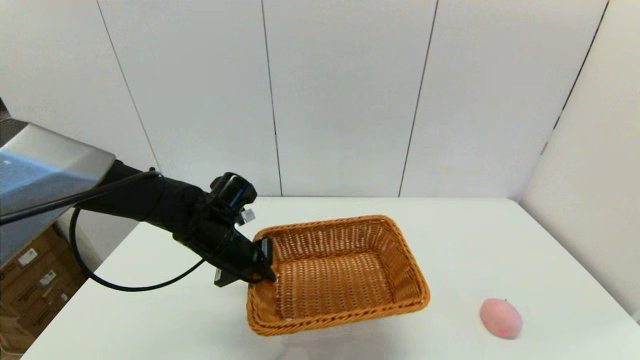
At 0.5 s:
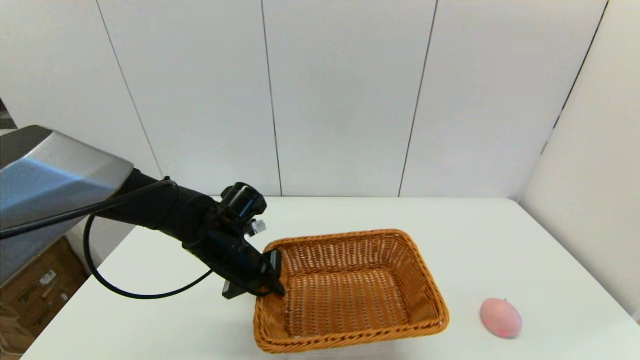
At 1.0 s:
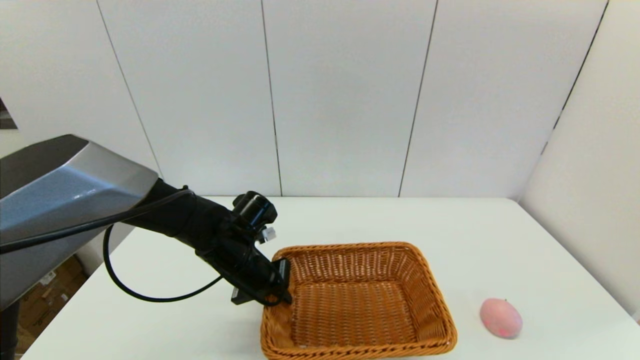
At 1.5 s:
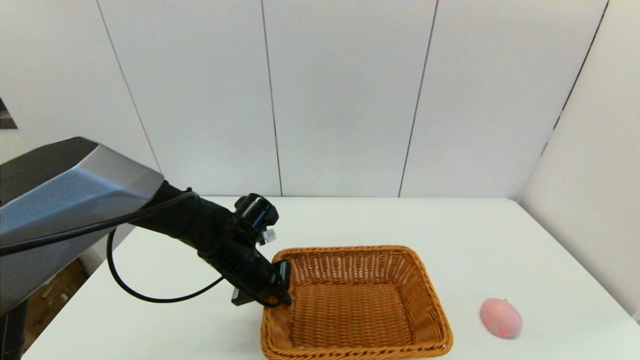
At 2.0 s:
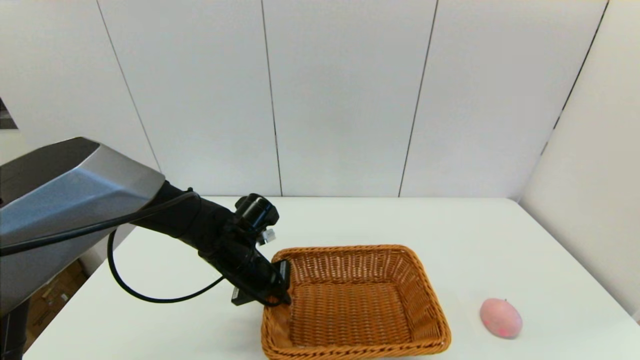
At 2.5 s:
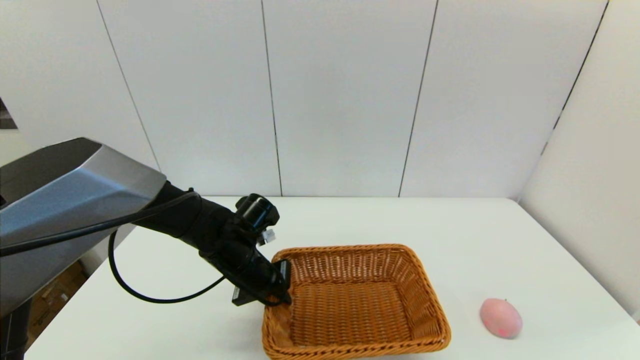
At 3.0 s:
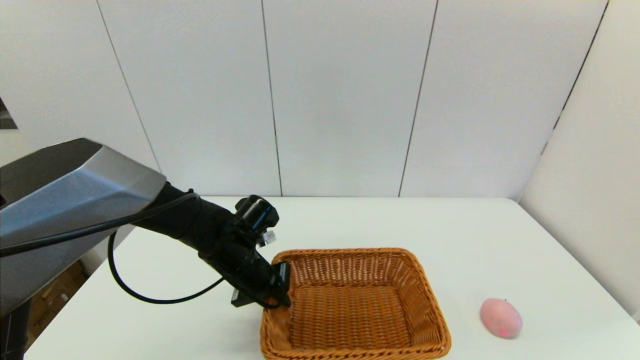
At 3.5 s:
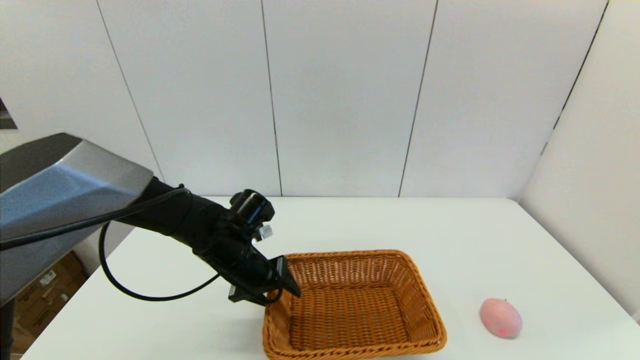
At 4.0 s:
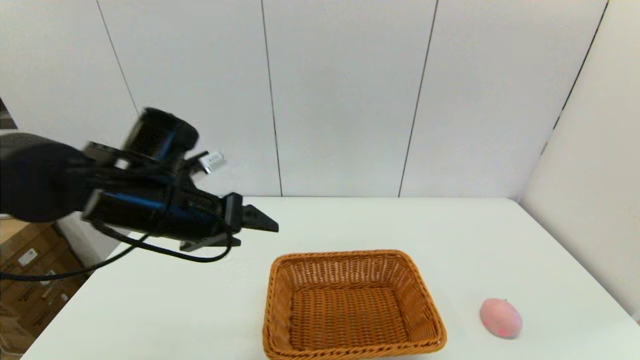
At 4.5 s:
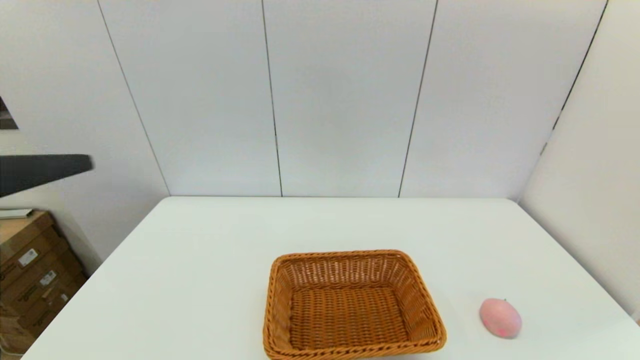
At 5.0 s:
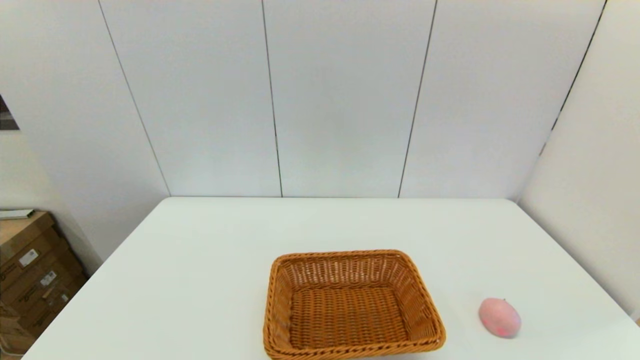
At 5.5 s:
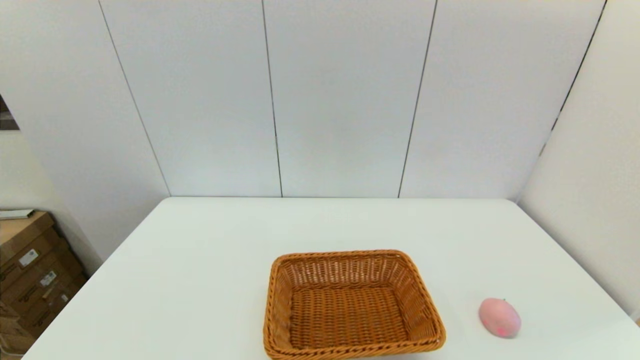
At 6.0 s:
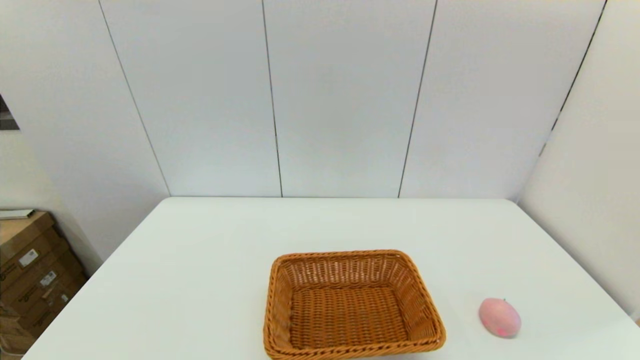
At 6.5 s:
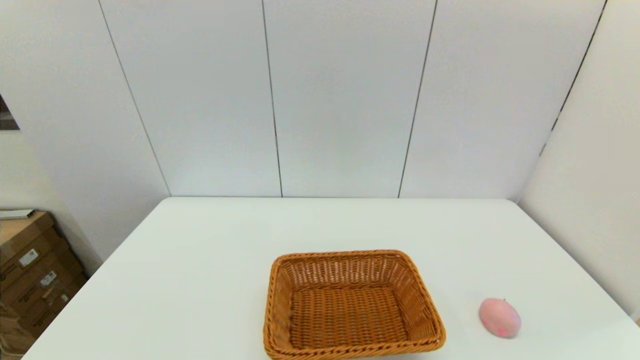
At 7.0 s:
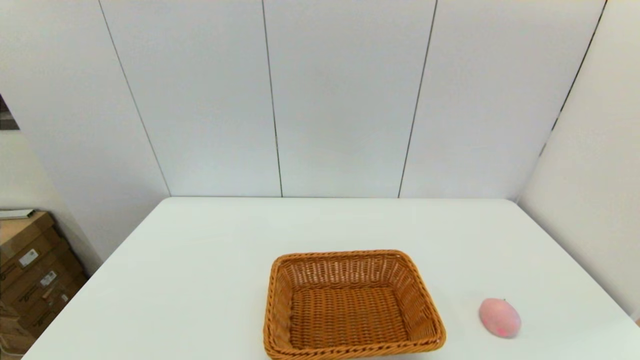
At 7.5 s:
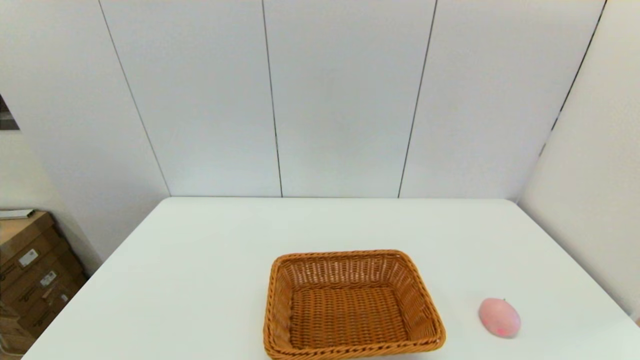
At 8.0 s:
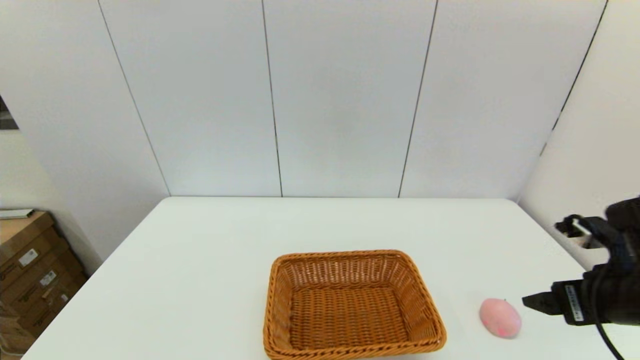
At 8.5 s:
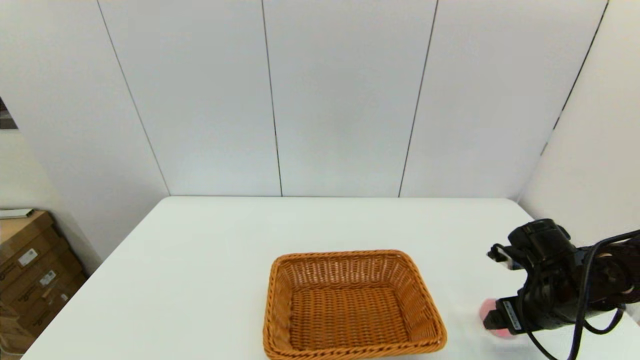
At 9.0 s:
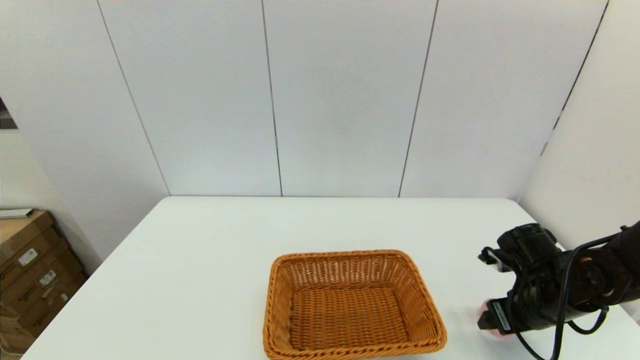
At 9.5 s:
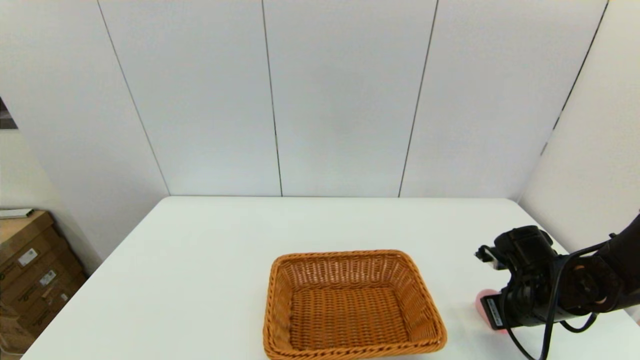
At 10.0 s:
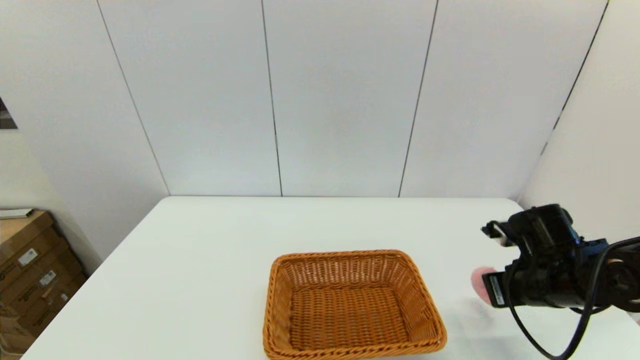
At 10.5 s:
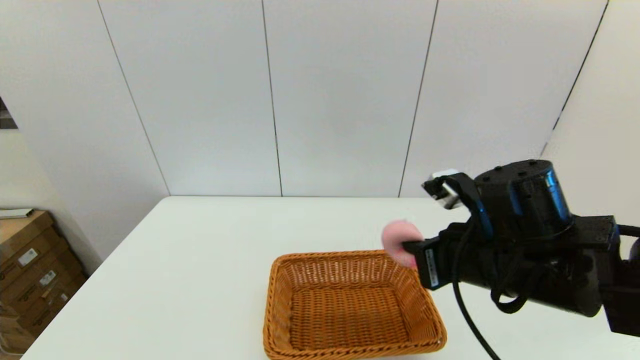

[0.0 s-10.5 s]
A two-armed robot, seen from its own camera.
Step, 0.0 to 3.0 s: Place the light basket on the middle of the table with the left gripper.
Step, 3.5 to 9.5 s: Grasp the peach with the right gripper.
0.0 to 2.0 s: The grippers move only a little.
2.0 to 4.0 s: The left gripper shifts some 15 cm upward, and opens its fingers.
4.0 to 6.5 s: The left gripper is displaced backward, downward and to the left by about 30 cm.
6.5 to 8.5 s: The right gripper heads forward, covering roughly 25 cm.
8.5 to 10.5 s: The right gripper shifts roughly 20 cm to the left and upward, and closes its fingers.

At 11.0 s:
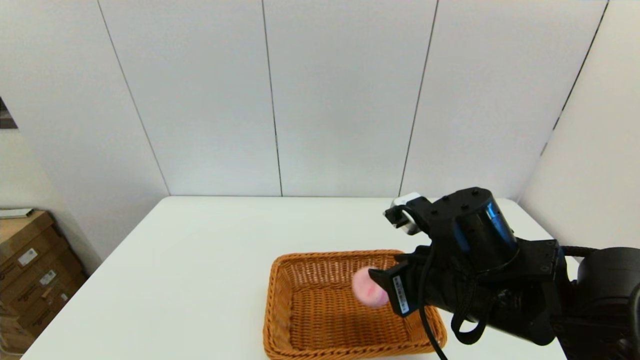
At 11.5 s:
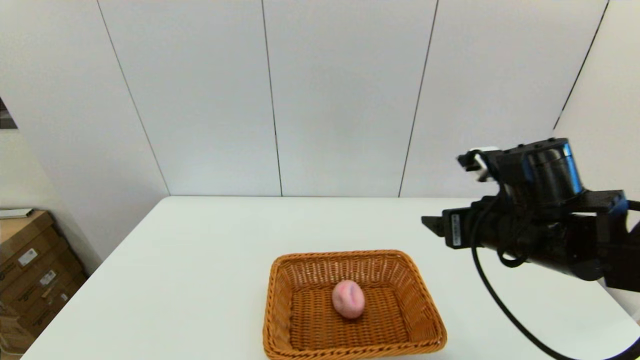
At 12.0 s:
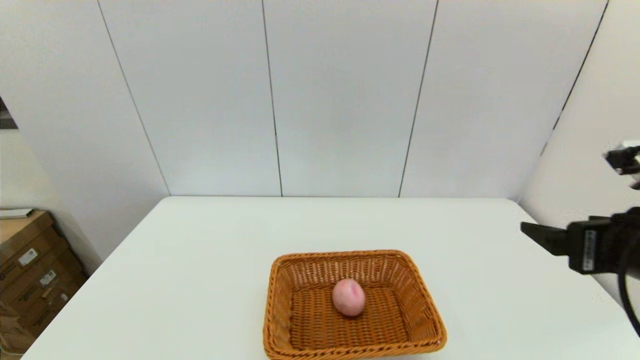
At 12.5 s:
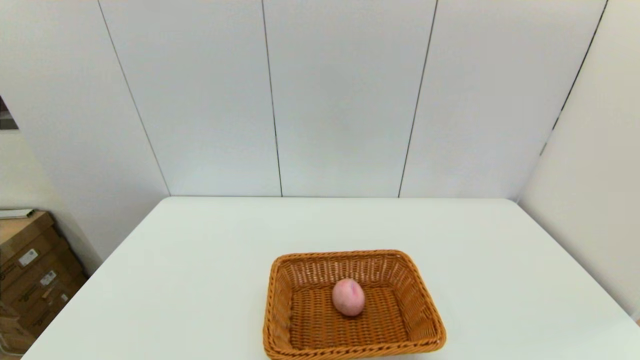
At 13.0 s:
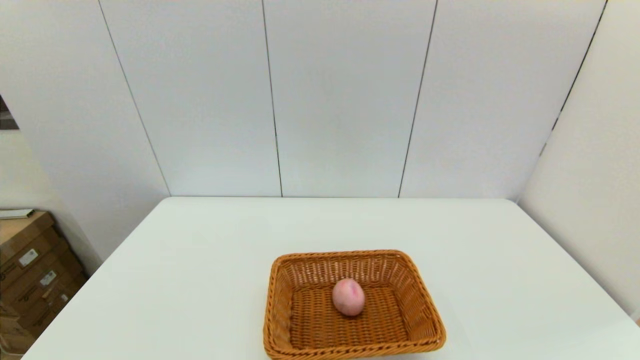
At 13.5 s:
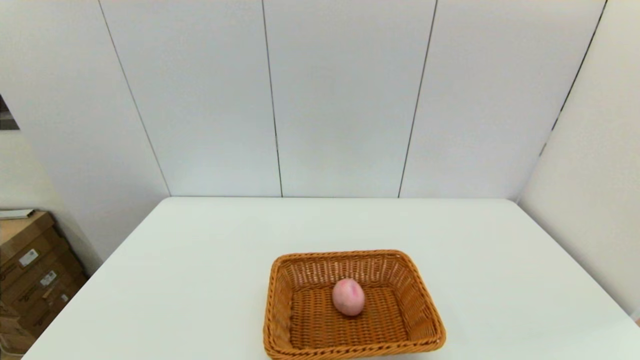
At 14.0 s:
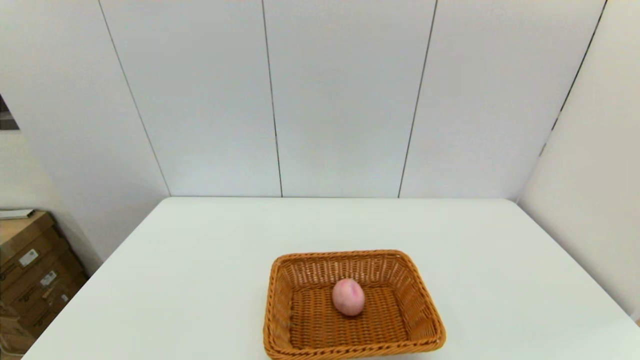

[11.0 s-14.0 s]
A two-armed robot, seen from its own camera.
11.0 to 12.5 s: The right gripper heads to the right and backward, covering about 25 cm, and opens.

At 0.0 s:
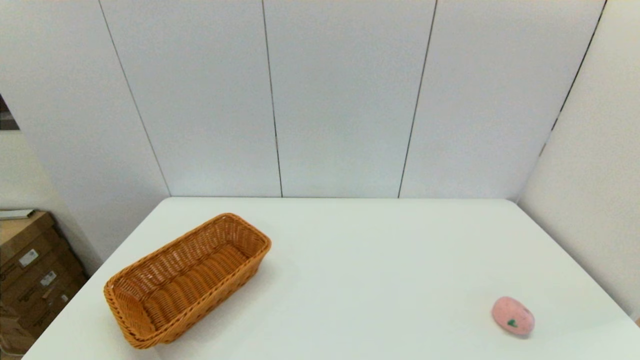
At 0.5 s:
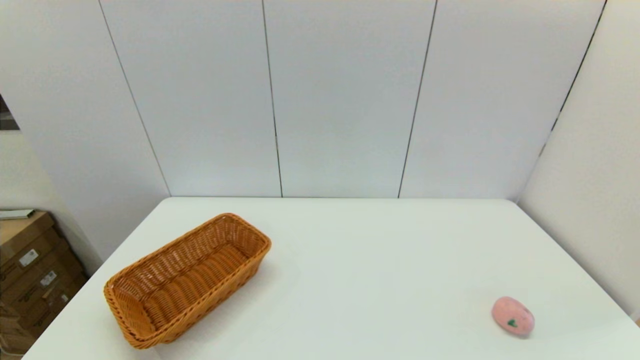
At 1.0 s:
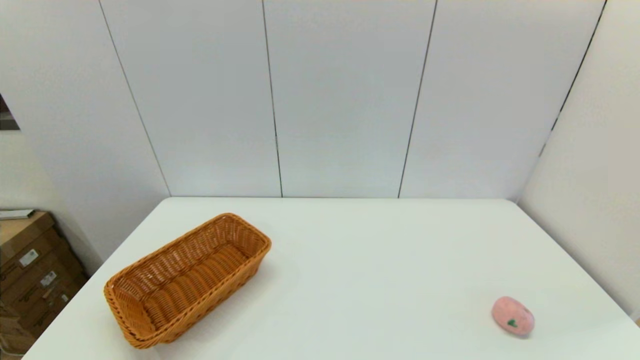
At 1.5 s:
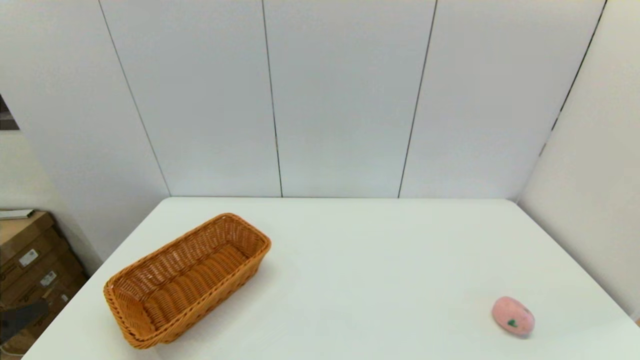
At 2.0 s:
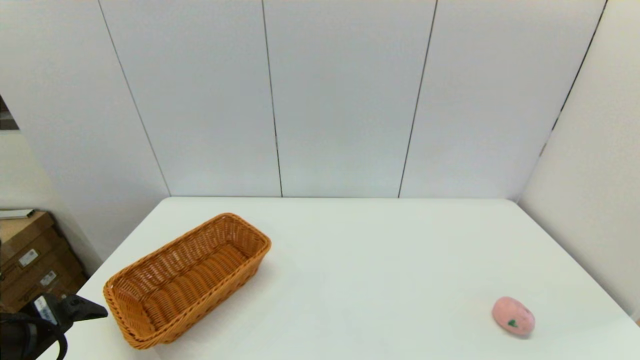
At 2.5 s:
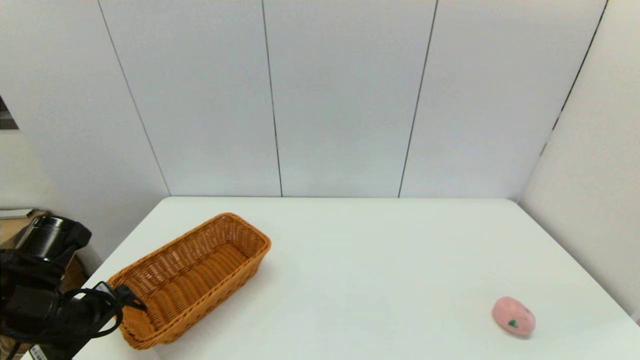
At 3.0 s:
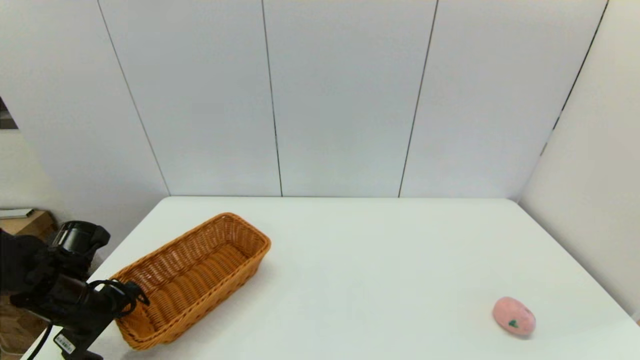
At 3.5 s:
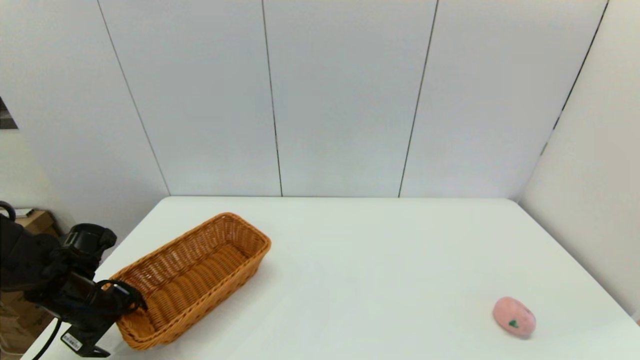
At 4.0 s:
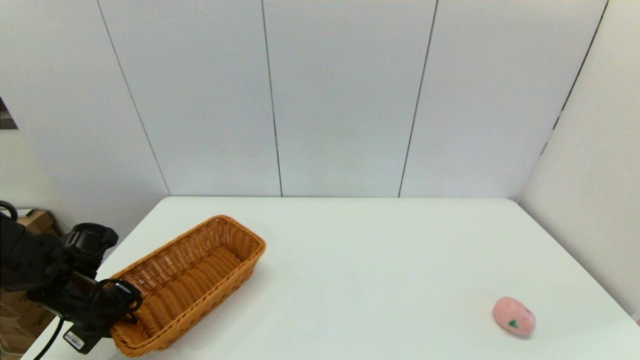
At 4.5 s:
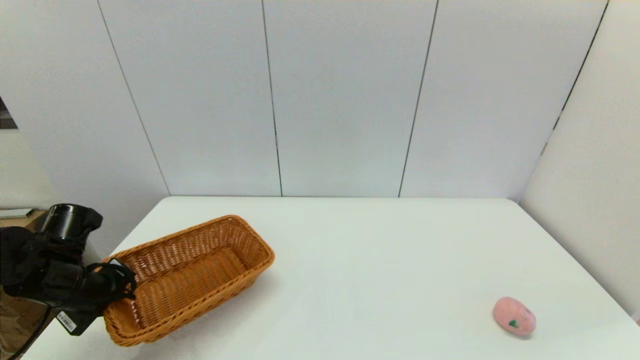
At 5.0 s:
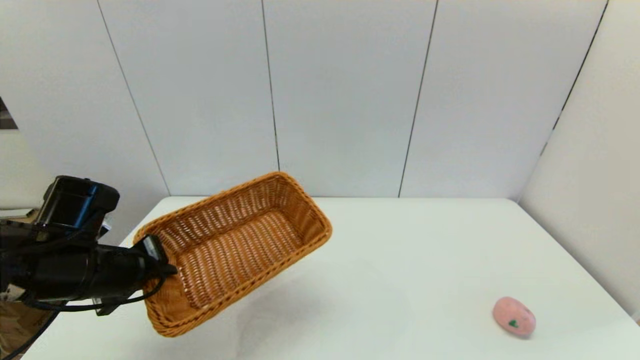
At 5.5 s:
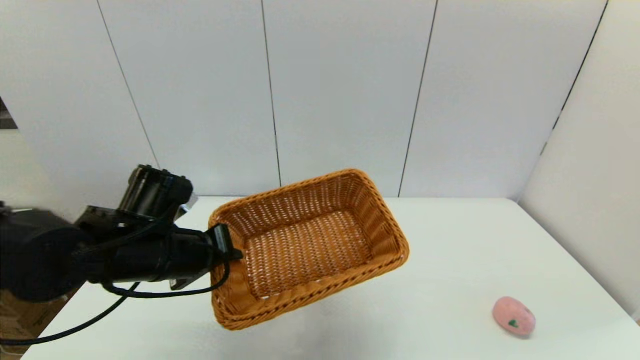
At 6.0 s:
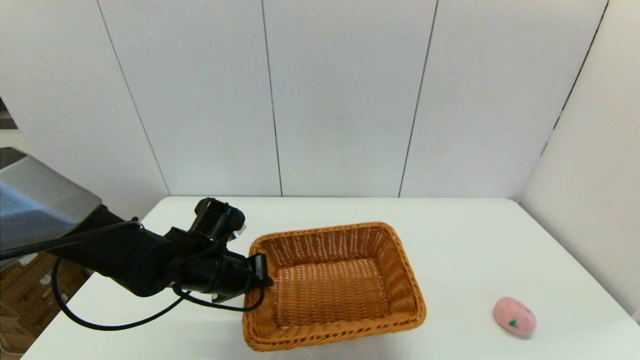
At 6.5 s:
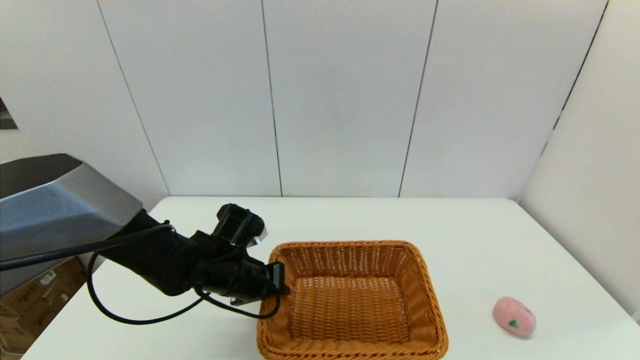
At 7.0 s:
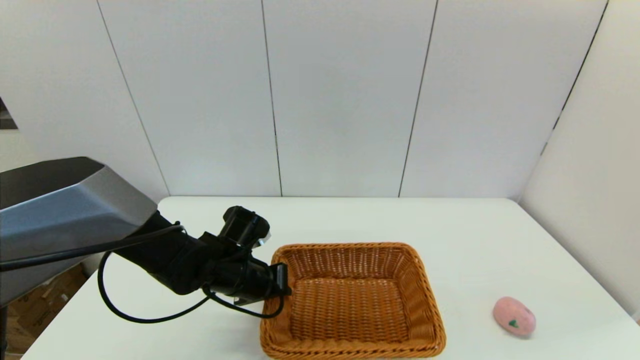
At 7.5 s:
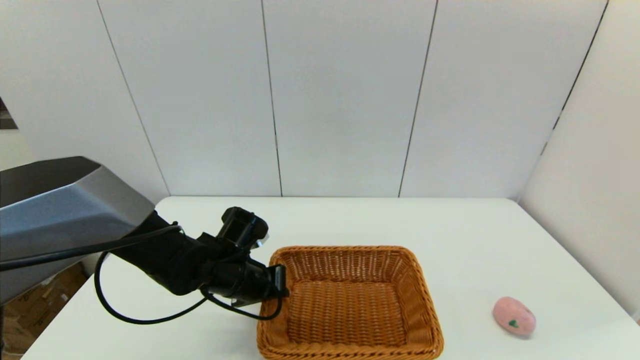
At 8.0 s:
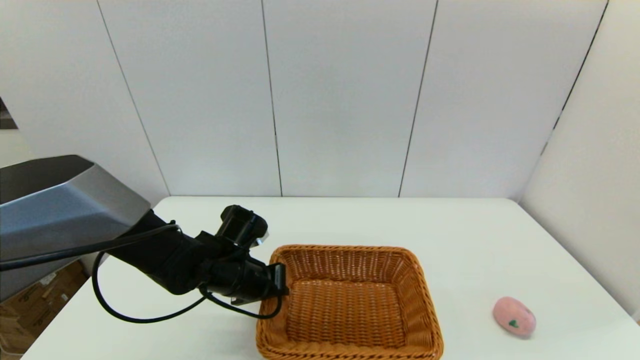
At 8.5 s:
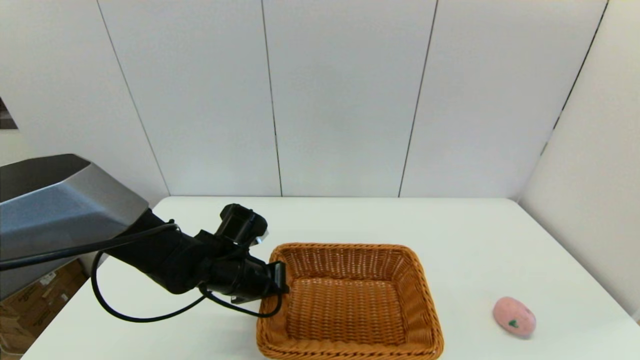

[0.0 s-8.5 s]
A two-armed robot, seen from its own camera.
Step, 0.0 to 4.0 s: Grasp the light basket with the left gripper.
0.0 to 2.0 s: The left gripper is displaced forward and upward by approximately 15 cm.
2.0 to 4.0 s: The left gripper heads forward and downward, covering approximately 15 cm, and closes up.
4.0 to 6.5 s: The left gripper travels to the right by about 20 cm.
6.5 to 8.5 s: The two grippers keep their place.
